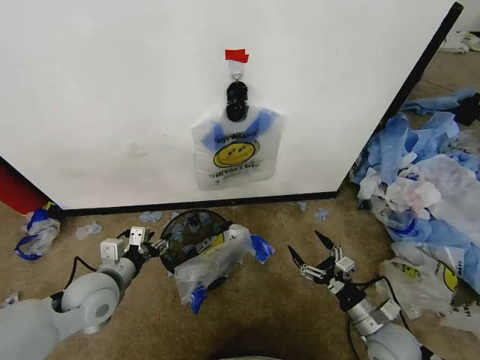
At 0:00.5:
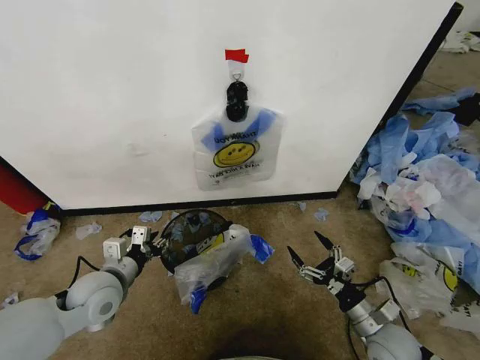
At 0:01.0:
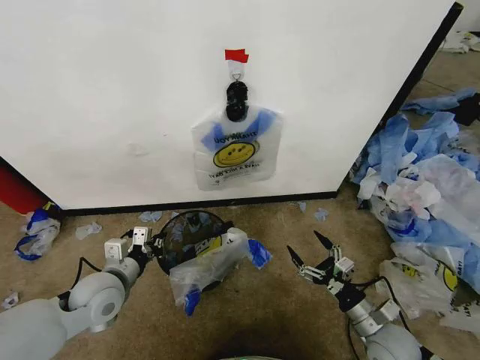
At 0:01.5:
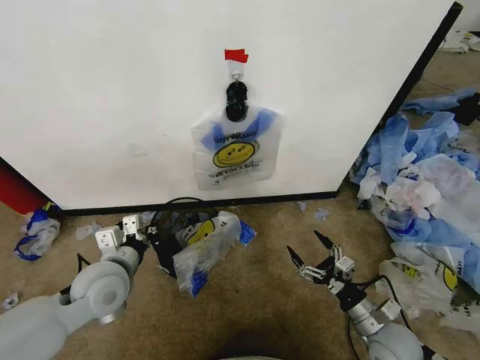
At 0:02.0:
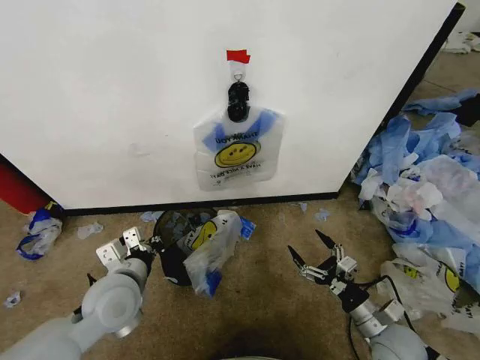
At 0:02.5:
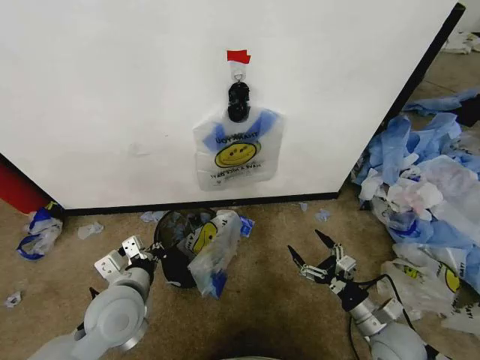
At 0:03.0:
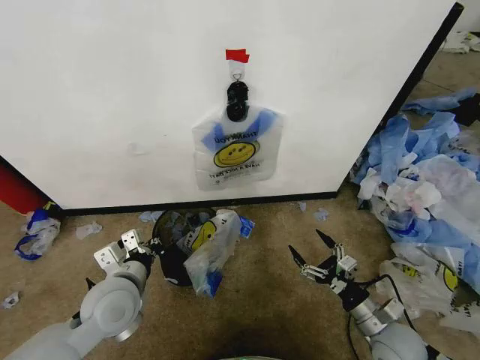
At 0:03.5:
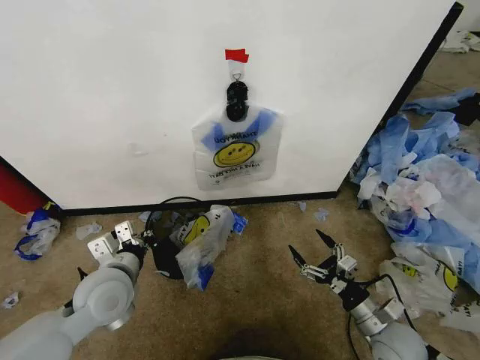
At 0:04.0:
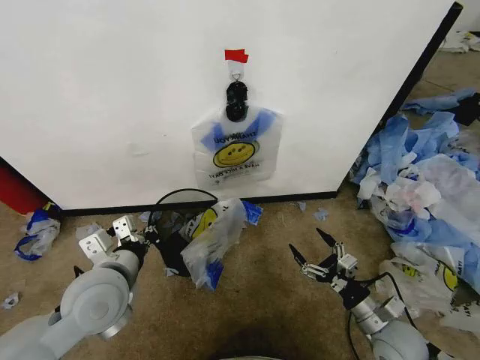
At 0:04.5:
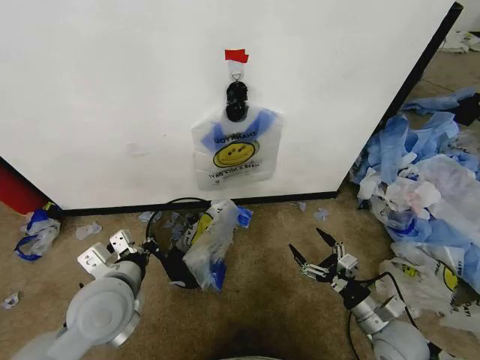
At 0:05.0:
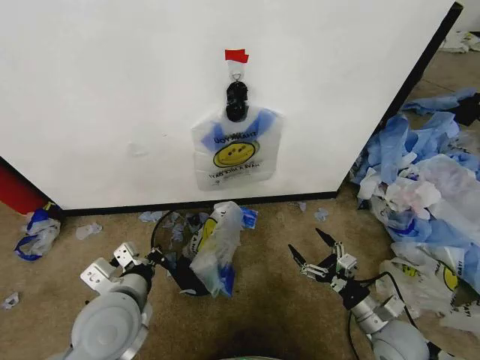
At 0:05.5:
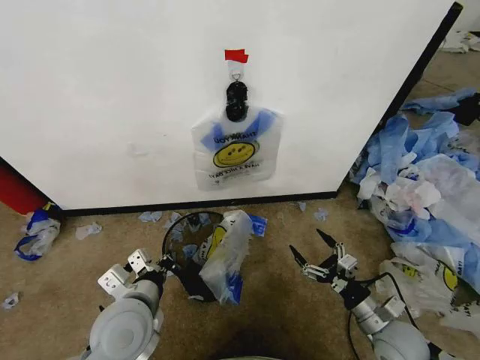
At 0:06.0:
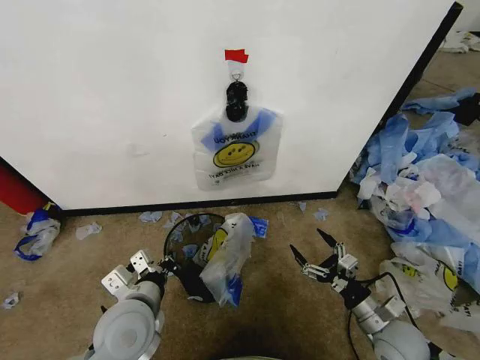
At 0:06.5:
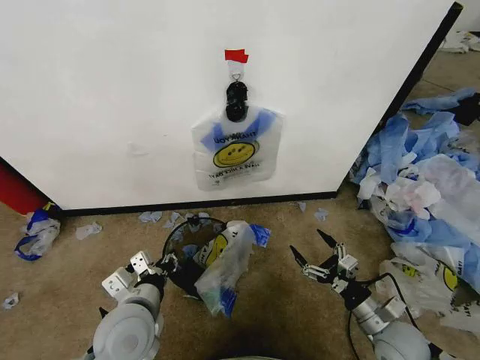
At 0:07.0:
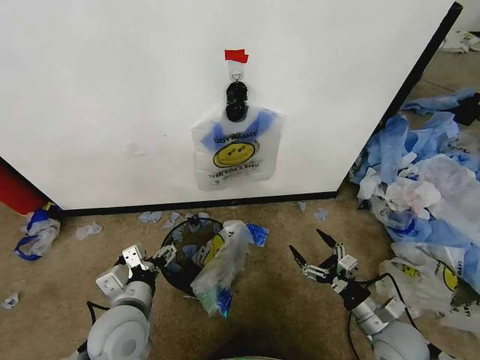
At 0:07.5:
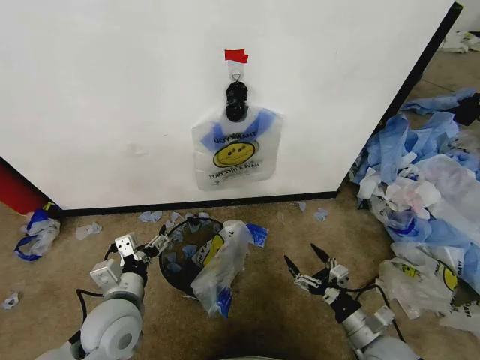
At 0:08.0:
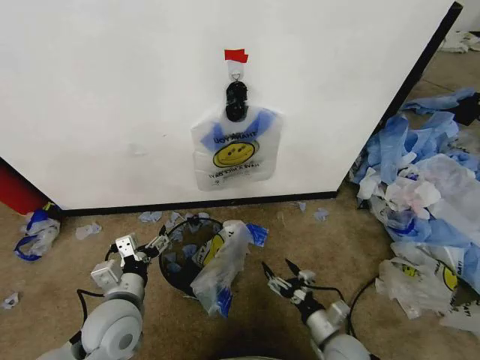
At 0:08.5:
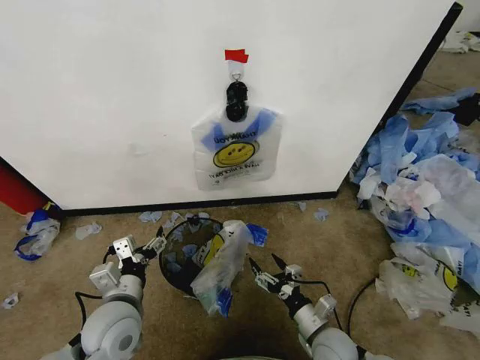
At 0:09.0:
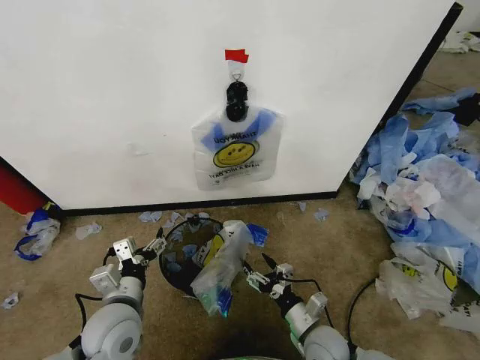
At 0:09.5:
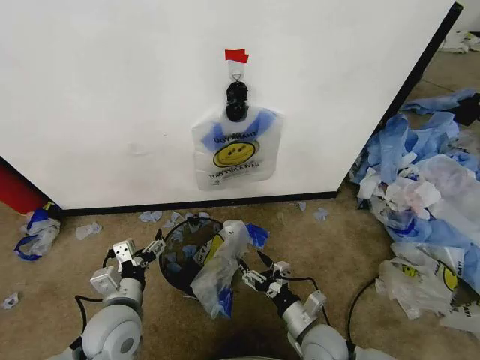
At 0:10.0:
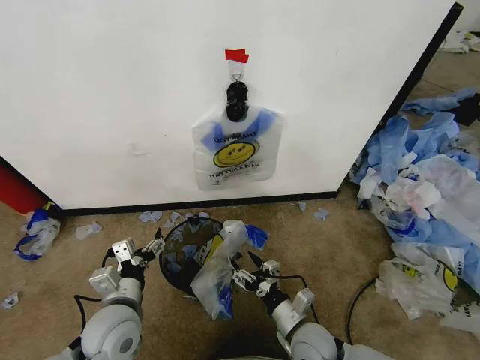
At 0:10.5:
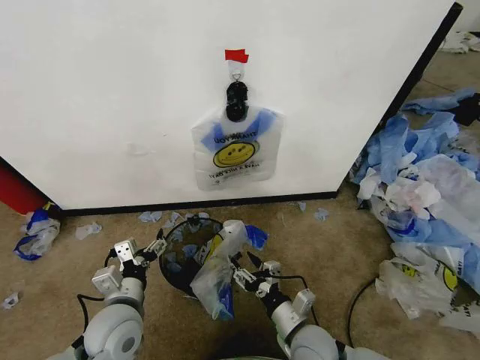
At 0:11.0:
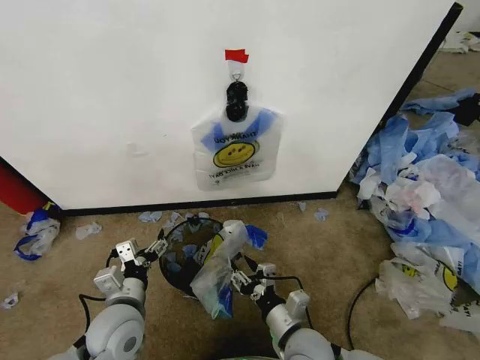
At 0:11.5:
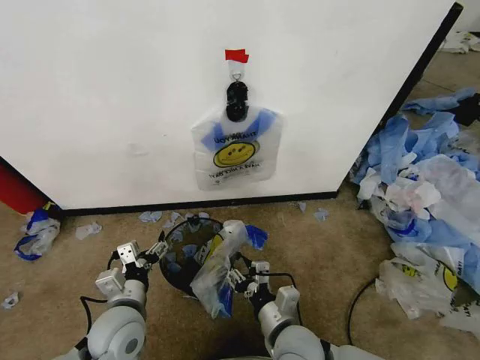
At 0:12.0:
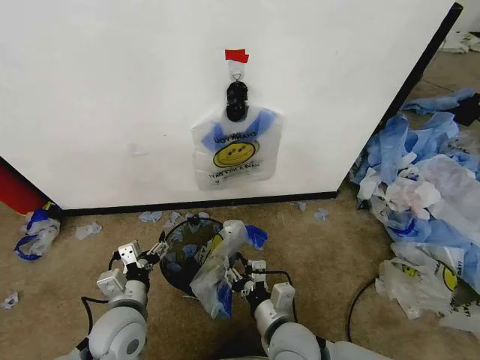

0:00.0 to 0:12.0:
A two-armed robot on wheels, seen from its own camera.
Task of the whole recording: Pick up the garbage bag from the wall and place it over the trash bin.
0:00.0 to 0:02.0: The left gripper goes about 5 cm to the right, and closes up.
0:02.0 to 0:04.0: The left gripper is displaced upward by some 5 cm.
0:04.0 to 0:06.0: The left gripper goes about 5 cm downward.
0:06.0 to 0:08.0: The right gripper heads to the left and downward, covering about 10 cm. Meanwhile the left gripper opens its fingers.
0:08.0 to 0:10.0: The right gripper moves to the left, about 10 cm.
0:10.0 to 0:12.0: The right gripper shifts approximately 10 cm upward and to the left.

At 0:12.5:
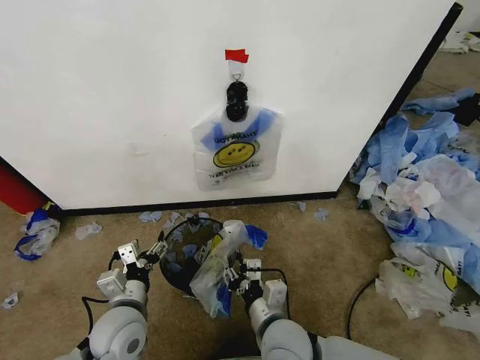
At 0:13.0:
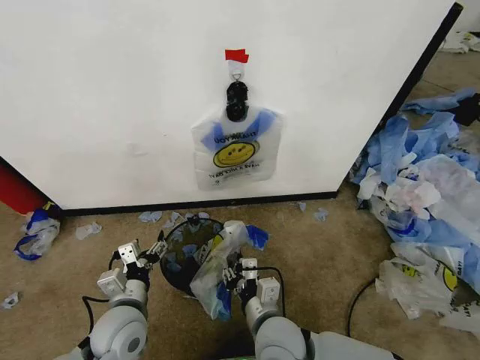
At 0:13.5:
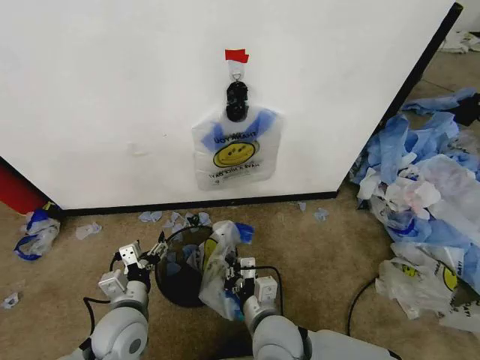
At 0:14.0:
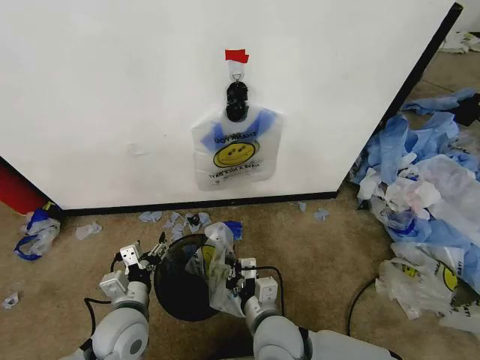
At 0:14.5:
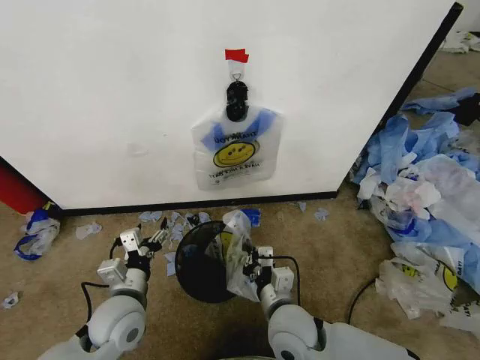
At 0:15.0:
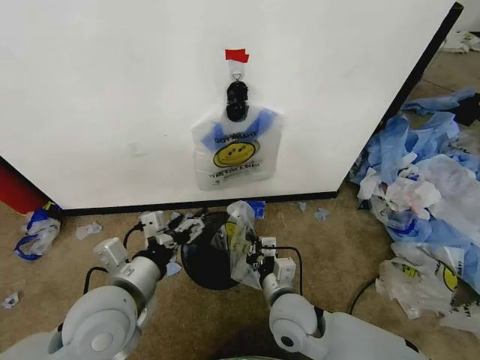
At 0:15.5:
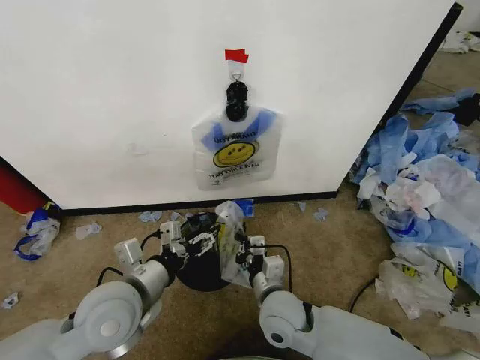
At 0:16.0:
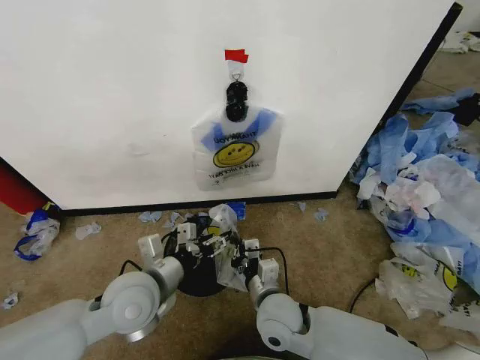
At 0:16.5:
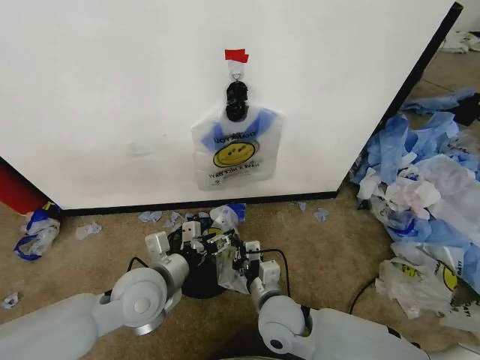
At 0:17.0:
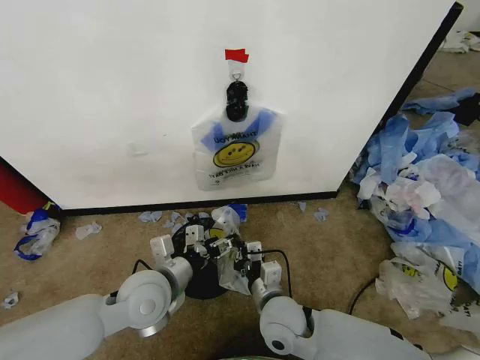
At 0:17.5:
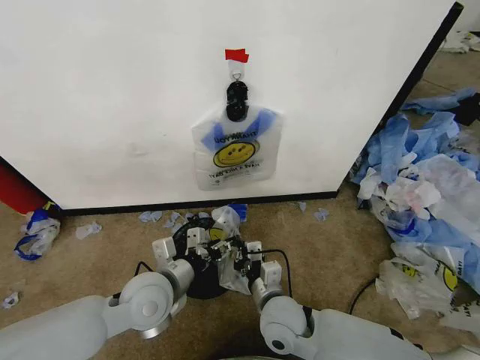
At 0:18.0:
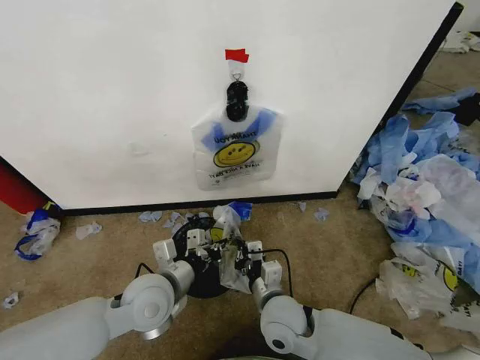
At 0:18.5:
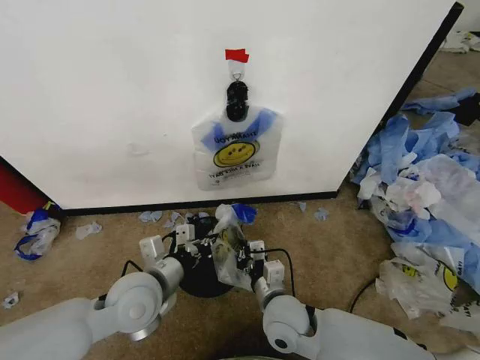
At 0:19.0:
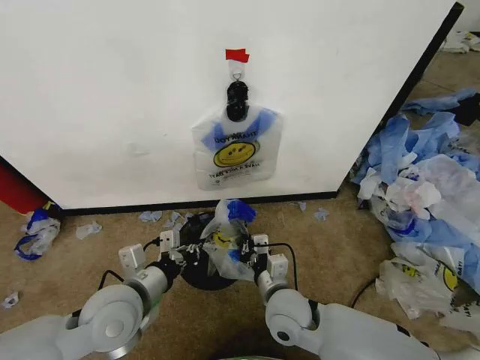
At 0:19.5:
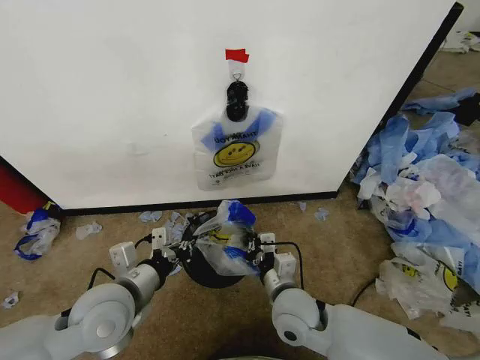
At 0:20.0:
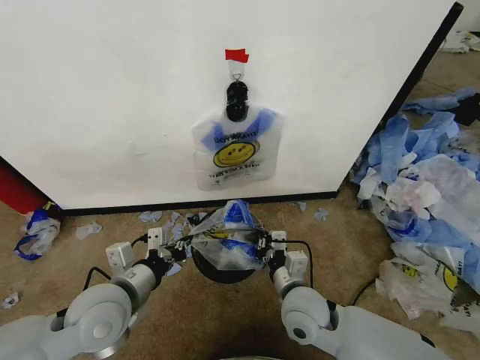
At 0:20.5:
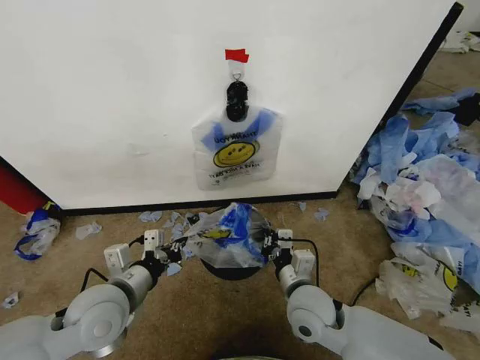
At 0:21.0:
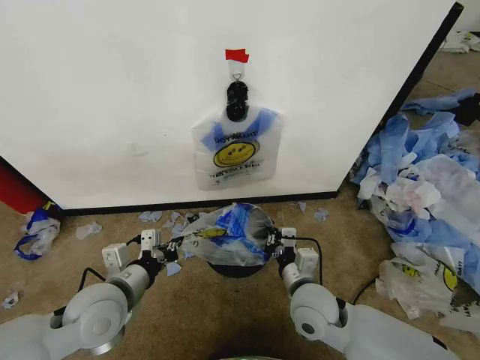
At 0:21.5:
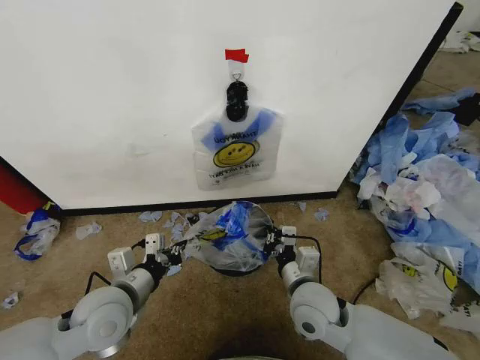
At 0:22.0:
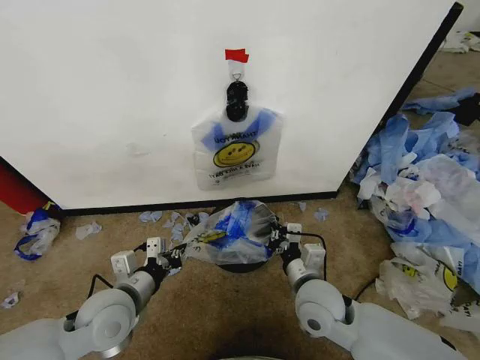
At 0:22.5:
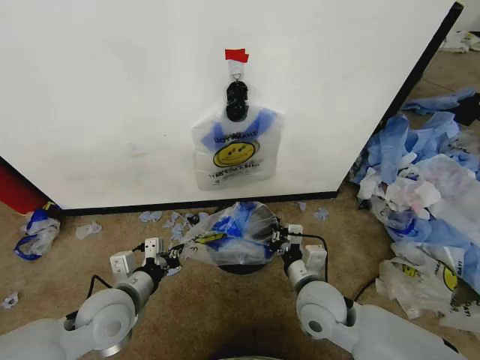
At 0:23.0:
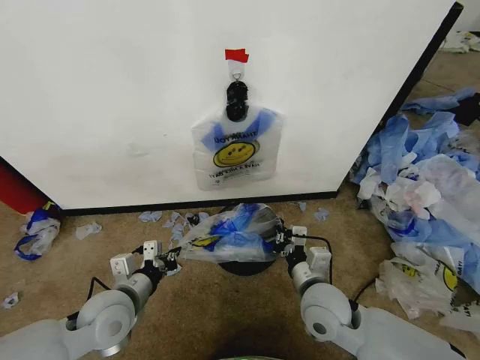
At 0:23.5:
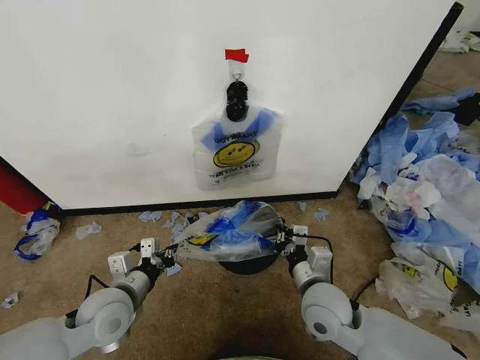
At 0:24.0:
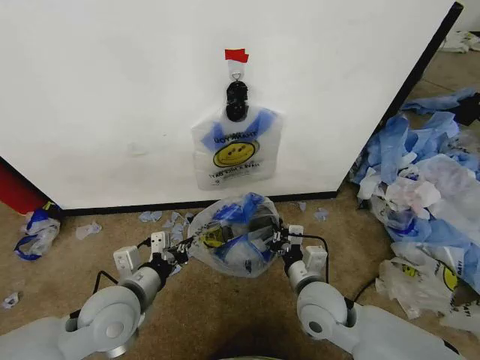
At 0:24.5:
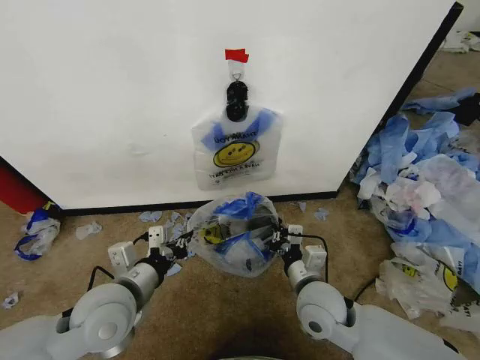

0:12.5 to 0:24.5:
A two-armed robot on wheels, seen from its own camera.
Task of the whole recording: Pick up the garbage bag from the wall and place it over the trash bin.
0:12.5 to 0:14.5: The right gripper closes.
0:14.5 to 0:16.5: The left gripper travels upward and to the right by roughly 10 cm.
0:16.5 to 0:18.5: The left gripper closes its fingers.
0:18.5 to 0:20.5: The left gripper changes place by about 5 cm; the right gripper changes place by roughly 5 cm.
0:20.5 to 0:22.5: The grippers move only a little.
0:22.5 to 0:24.5: The left gripper travels upward by some 5 cm.

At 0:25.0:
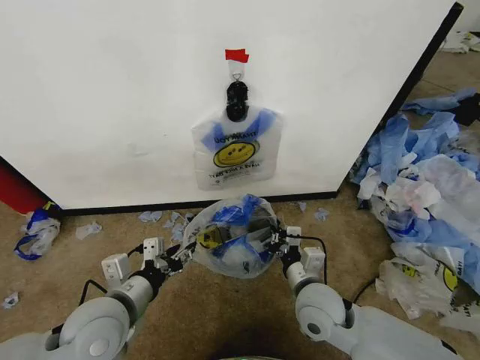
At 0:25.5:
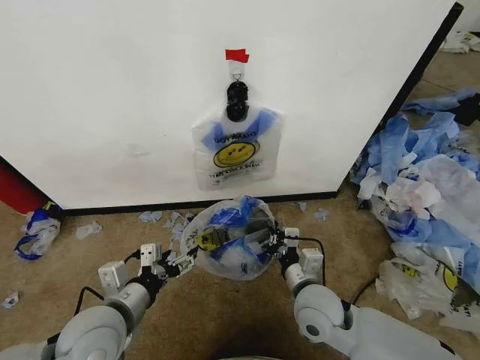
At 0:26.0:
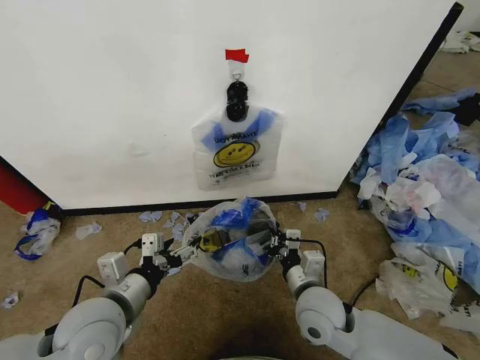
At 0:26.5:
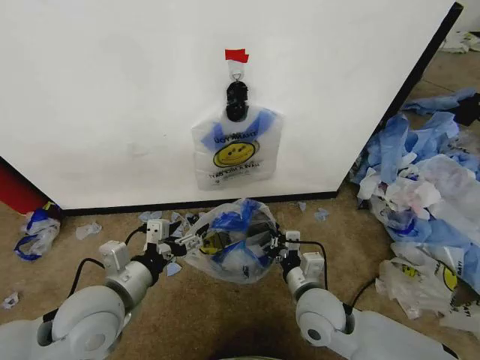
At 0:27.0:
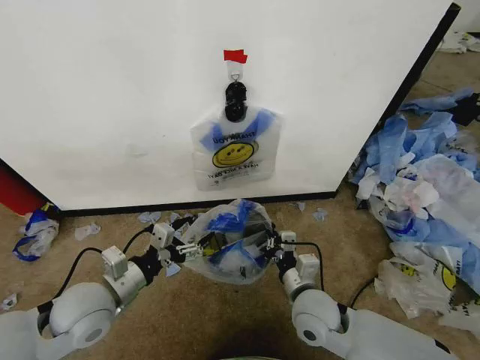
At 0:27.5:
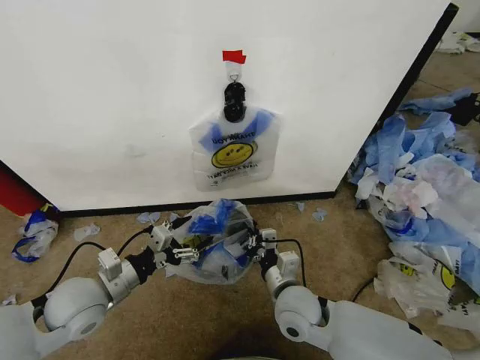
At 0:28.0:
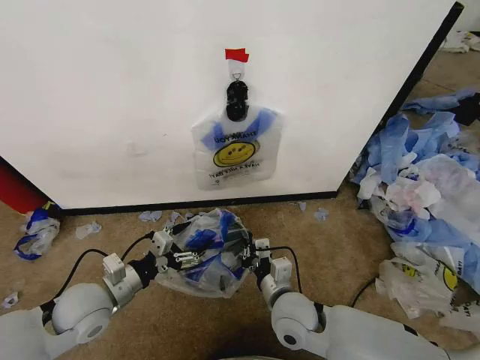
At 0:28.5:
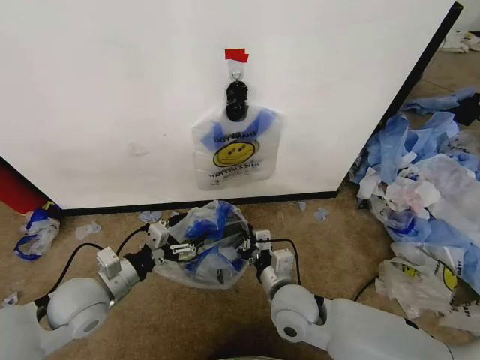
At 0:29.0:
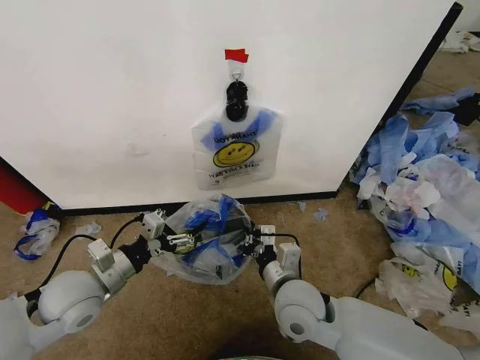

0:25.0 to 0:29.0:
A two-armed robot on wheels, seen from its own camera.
Task of the whole recording: Pick up the garbage bag from the wall and place it over the trash bin.
0:25.0 to 0:27.0: The left gripper moves some 5 cm.
0:27.0 to 0:29.0: The right gripper ends up about 5 cm from where it was.
